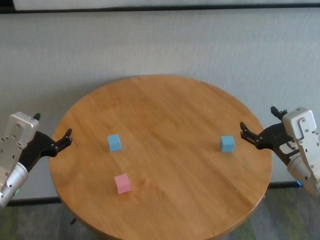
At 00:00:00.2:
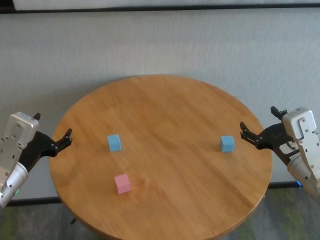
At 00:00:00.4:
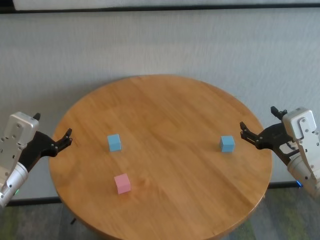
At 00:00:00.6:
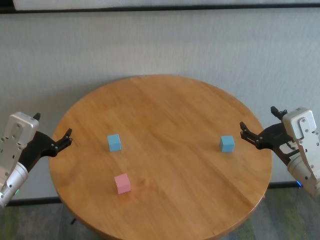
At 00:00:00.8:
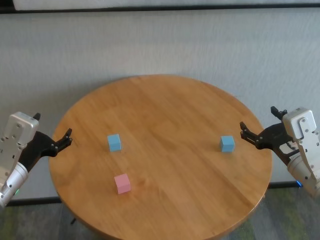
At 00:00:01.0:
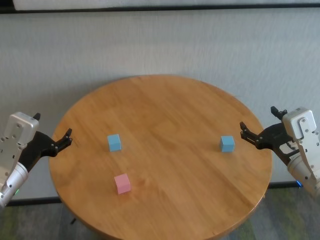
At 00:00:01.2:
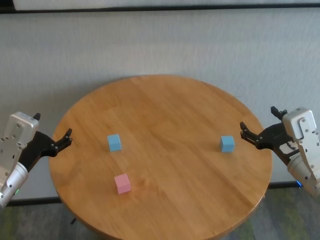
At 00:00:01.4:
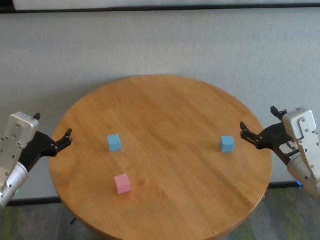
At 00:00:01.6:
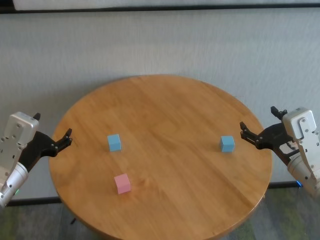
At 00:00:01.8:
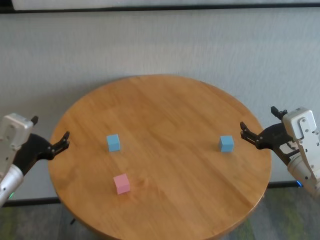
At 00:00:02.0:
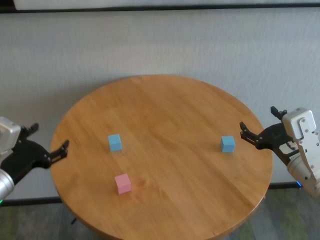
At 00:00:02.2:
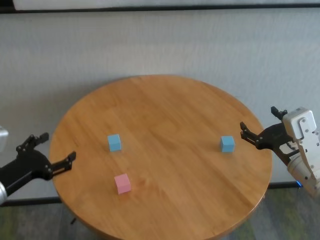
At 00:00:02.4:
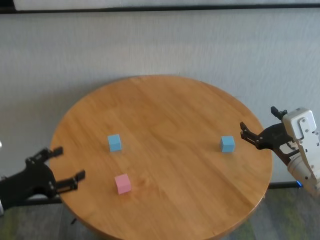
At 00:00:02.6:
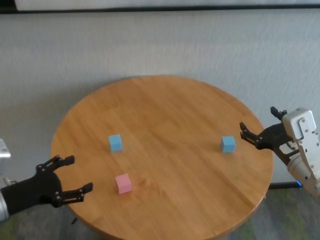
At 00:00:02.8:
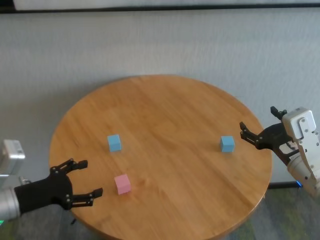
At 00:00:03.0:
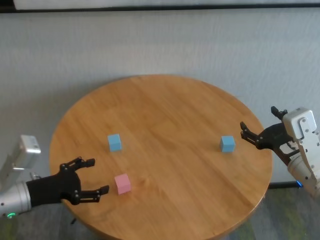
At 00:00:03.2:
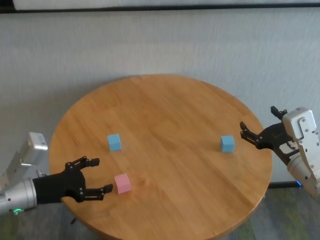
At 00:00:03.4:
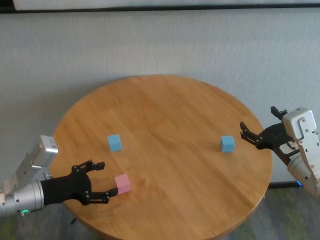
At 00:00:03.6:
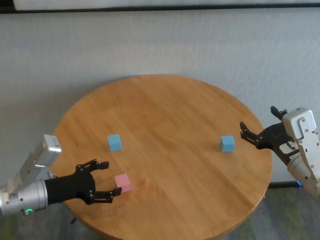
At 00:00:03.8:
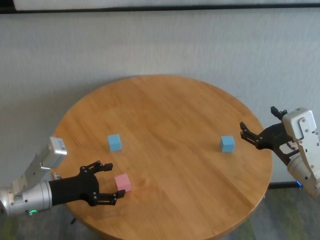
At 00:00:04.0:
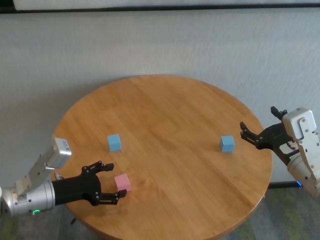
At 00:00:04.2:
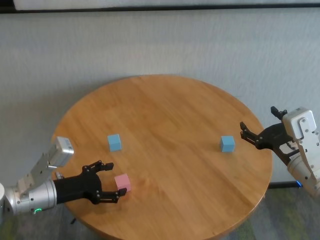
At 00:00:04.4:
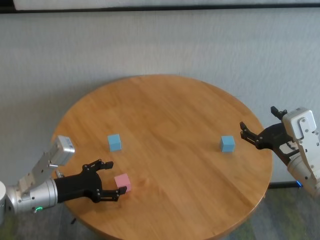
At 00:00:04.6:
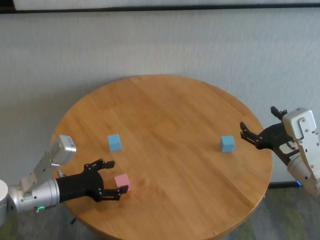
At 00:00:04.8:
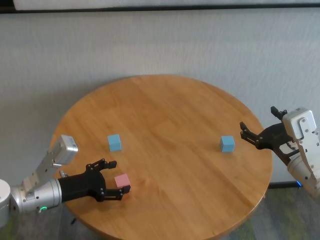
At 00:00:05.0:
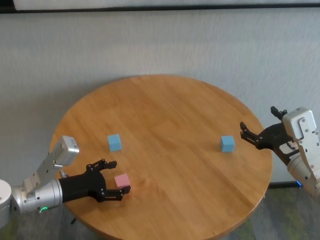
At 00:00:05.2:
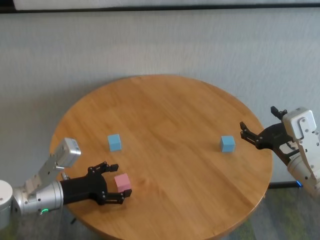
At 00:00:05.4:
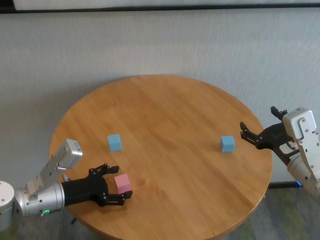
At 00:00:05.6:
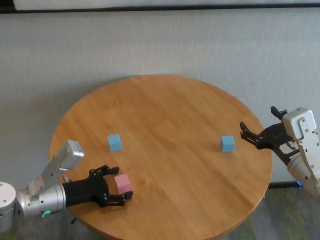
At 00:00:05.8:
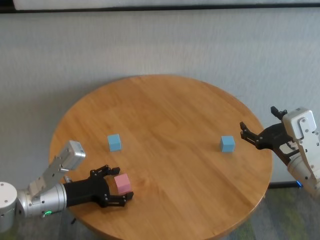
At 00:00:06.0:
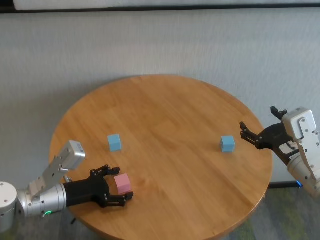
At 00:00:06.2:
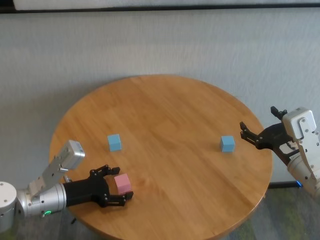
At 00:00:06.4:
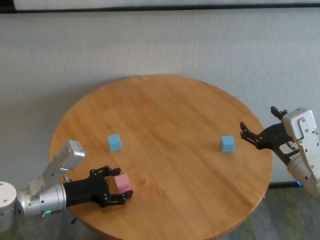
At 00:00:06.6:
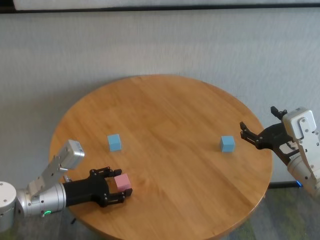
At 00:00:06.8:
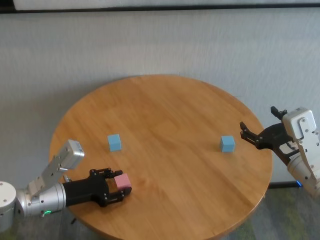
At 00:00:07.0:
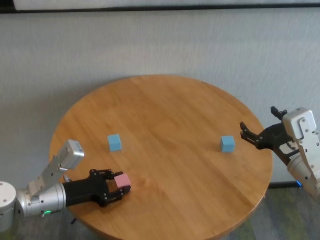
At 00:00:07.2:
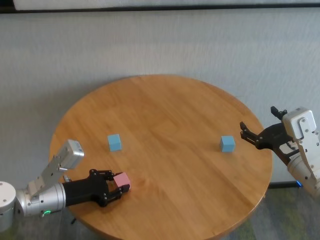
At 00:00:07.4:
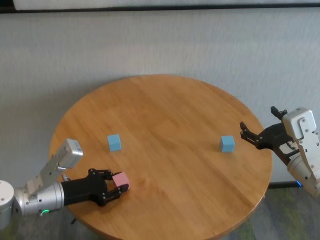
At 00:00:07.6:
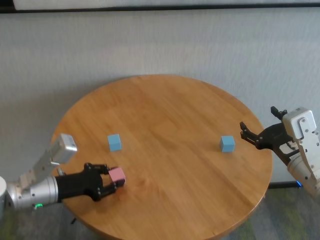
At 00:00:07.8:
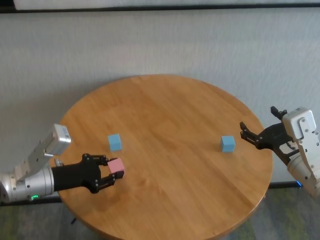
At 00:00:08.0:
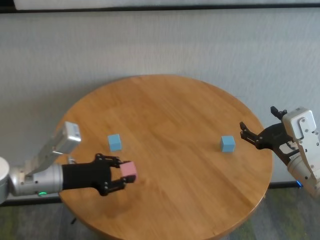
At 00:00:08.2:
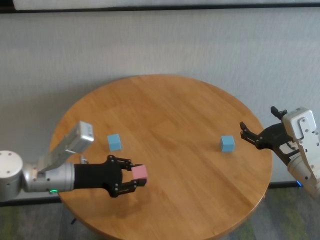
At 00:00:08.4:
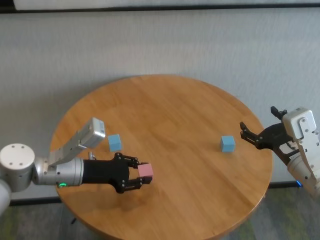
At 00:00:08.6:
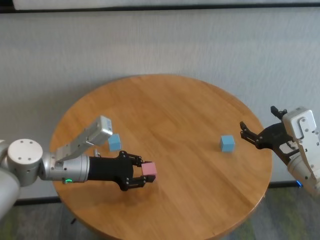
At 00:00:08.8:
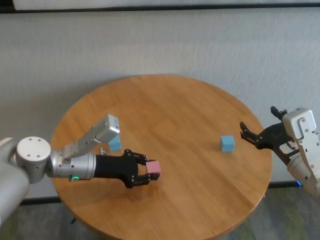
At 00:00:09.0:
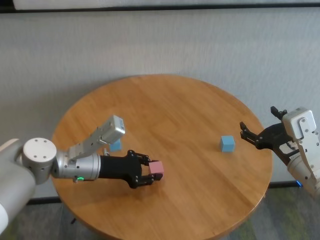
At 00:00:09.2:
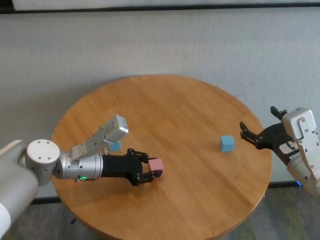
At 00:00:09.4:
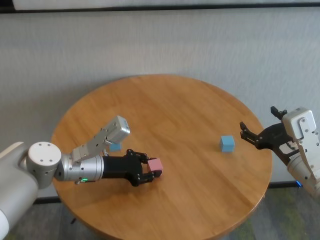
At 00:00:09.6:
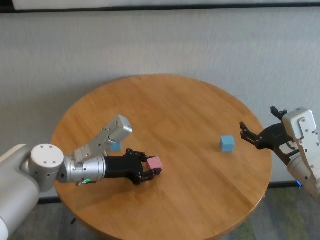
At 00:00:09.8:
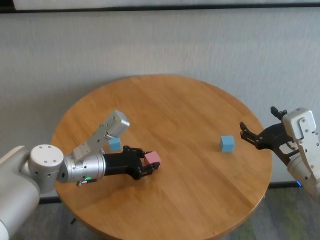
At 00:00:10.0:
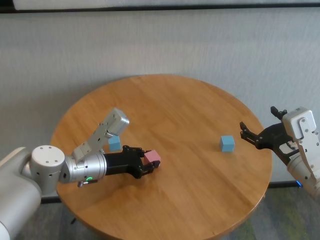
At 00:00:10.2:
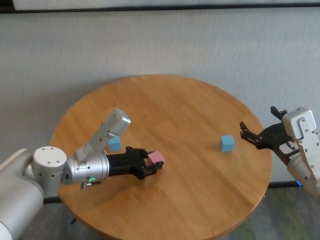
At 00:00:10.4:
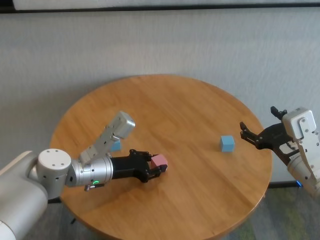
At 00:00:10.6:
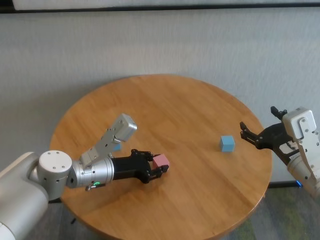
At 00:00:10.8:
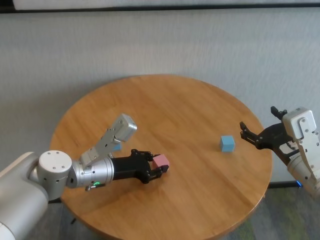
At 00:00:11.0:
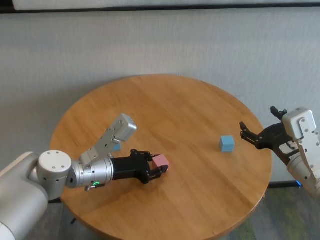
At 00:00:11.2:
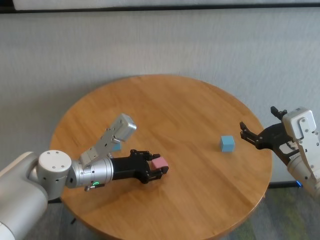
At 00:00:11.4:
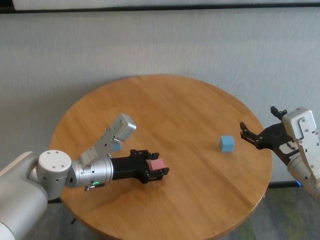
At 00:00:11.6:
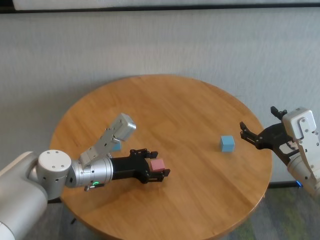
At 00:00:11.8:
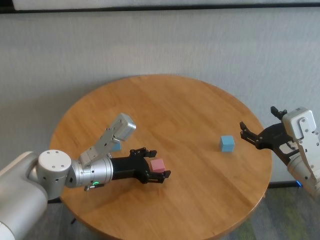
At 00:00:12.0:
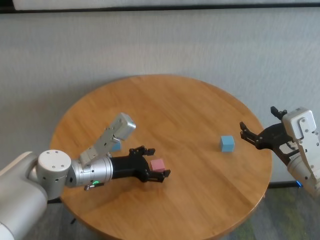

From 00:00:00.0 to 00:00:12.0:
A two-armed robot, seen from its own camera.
Task of the whole recording: stack building blocks on the table.
Step, from 00:00:00.0 to 00:00:07.2: Grasp the pink building block with left gripper.
Step, from 00:00:07.4 to 00:00:11.8: Place the pink building block in the center of table with left gripper.

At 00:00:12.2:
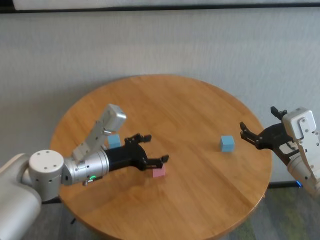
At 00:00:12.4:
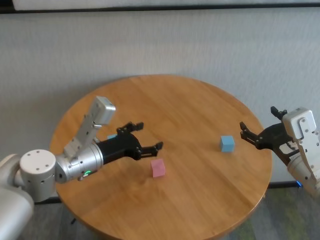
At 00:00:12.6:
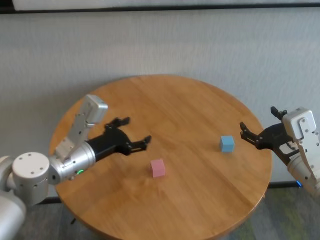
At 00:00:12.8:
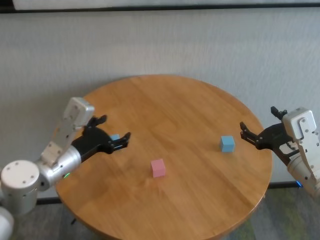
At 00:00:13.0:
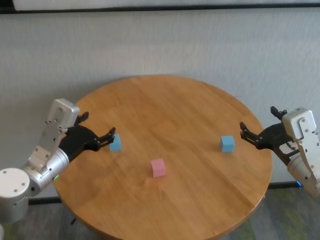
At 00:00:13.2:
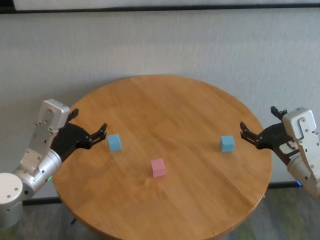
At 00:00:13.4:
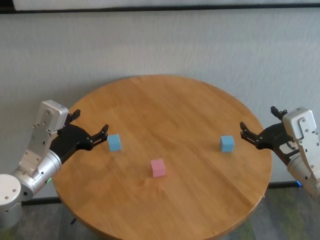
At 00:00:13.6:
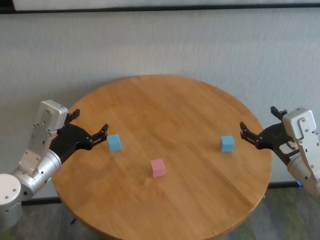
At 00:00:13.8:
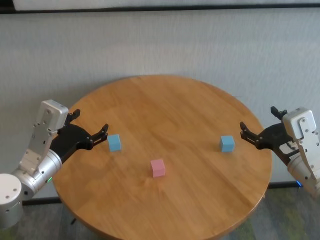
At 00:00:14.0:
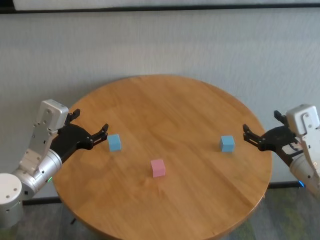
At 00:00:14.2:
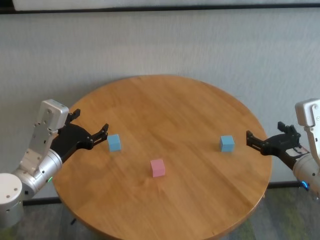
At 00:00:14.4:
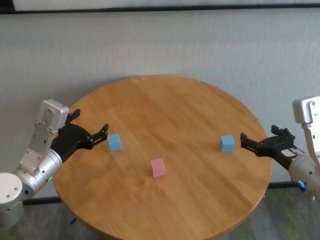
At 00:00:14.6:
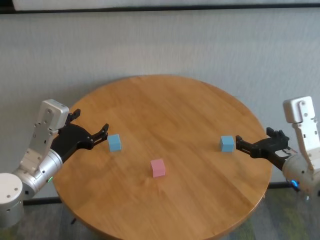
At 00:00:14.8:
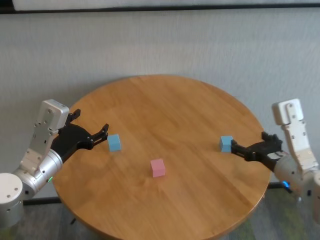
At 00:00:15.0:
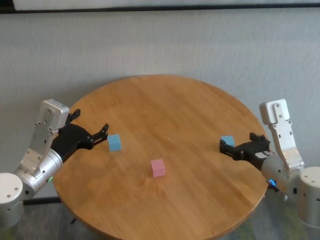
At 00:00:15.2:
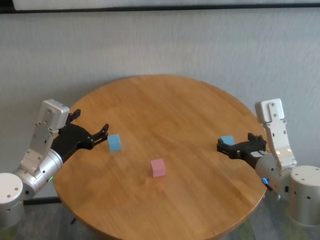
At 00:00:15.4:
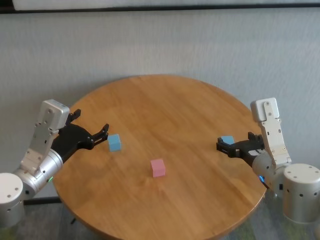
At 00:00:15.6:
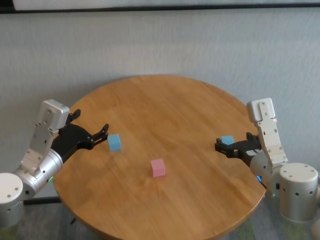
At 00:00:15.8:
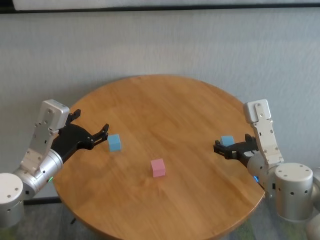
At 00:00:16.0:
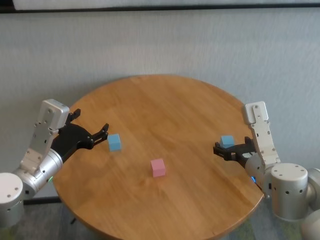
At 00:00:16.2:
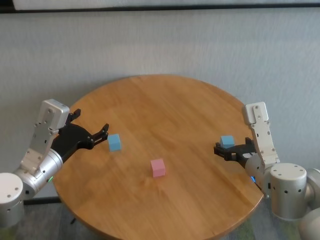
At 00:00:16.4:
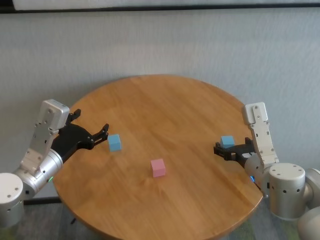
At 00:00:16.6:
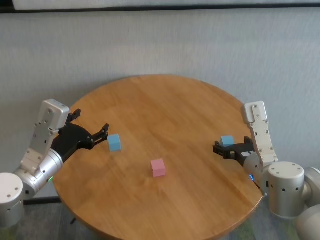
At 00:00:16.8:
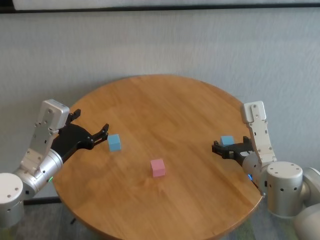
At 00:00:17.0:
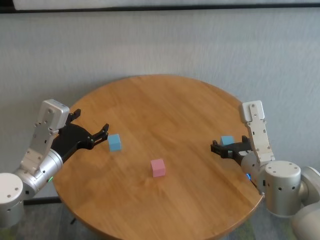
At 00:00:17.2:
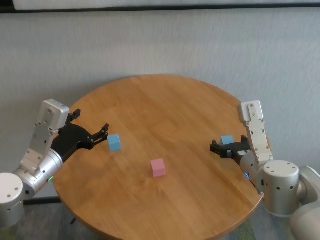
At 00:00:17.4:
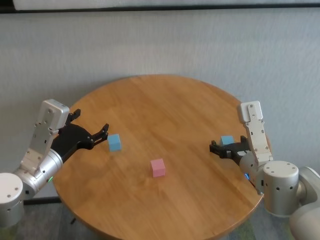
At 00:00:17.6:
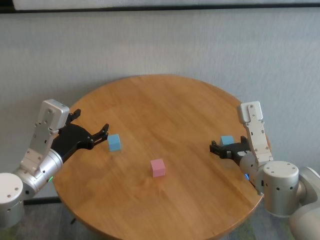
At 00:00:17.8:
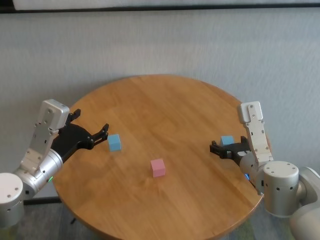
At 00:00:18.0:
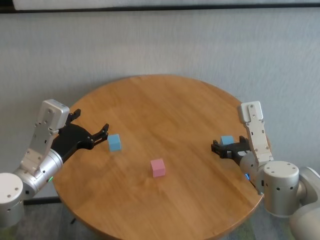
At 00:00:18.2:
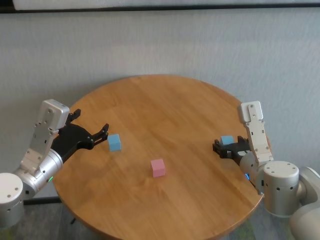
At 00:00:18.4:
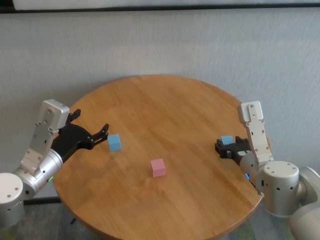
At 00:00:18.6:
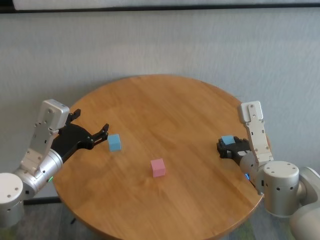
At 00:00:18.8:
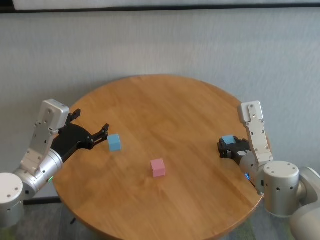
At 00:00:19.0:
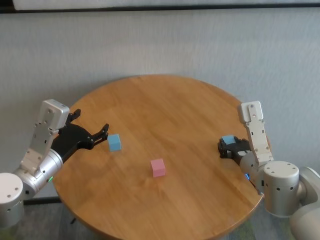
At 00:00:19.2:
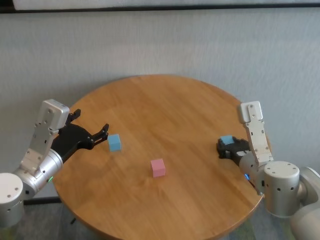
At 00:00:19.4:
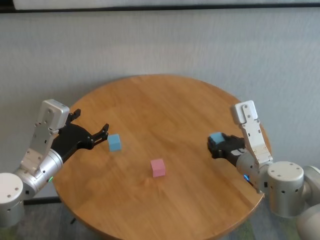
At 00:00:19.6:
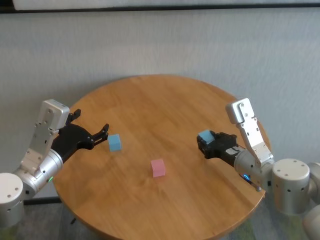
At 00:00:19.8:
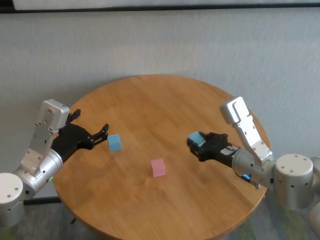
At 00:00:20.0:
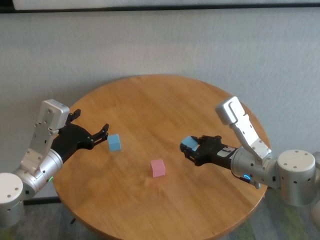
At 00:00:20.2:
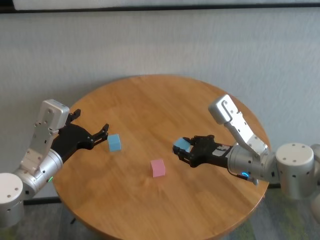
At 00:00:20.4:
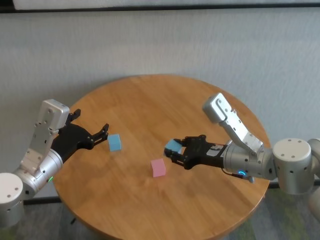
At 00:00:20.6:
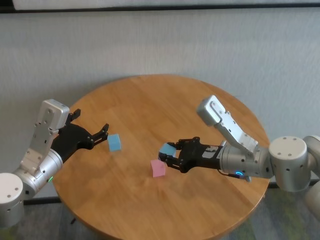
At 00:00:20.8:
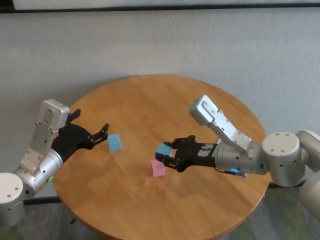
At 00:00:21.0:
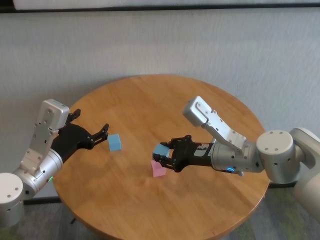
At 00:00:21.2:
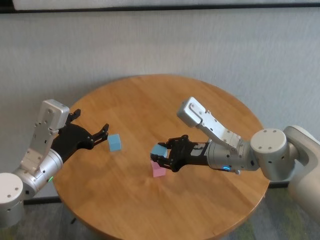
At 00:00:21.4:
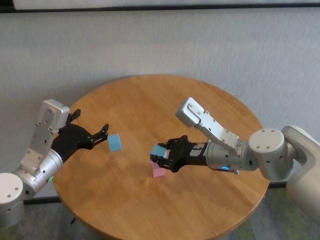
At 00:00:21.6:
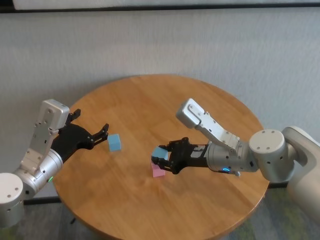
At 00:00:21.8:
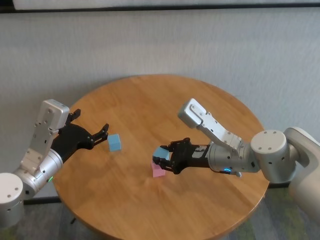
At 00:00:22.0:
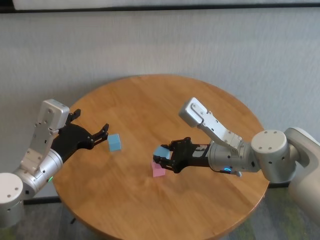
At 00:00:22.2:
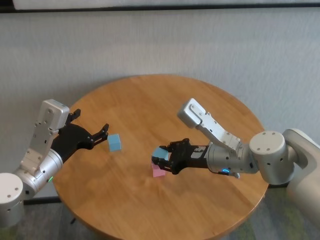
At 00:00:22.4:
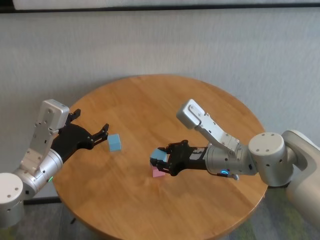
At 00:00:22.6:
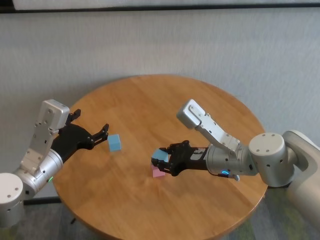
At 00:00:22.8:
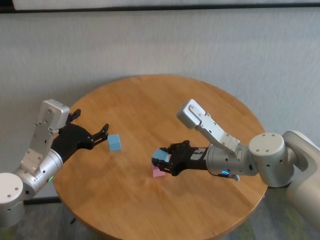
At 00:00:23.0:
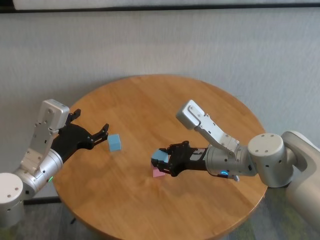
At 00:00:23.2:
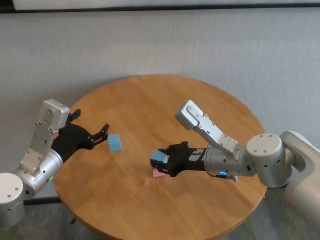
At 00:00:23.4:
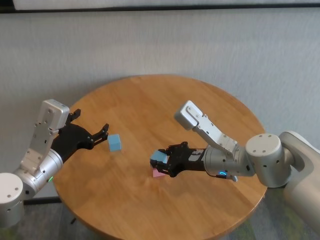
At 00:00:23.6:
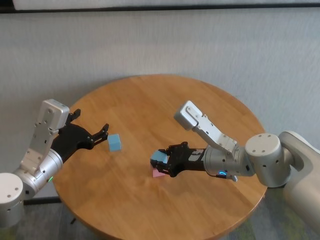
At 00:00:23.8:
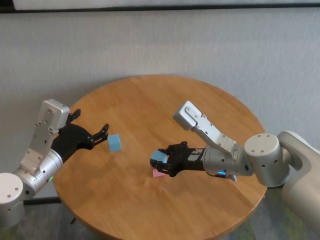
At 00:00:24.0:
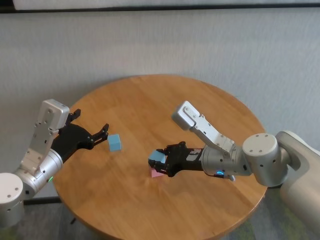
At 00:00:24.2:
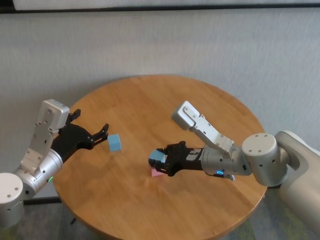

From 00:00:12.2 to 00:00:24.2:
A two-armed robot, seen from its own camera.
Task of the whole recording: stack building blocks on the table.
Step, from 00:00:12.2 to 00:00:18.8: Grasp the blue building block with right gripper.
